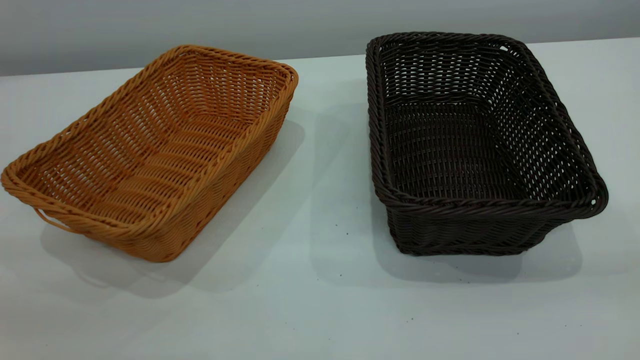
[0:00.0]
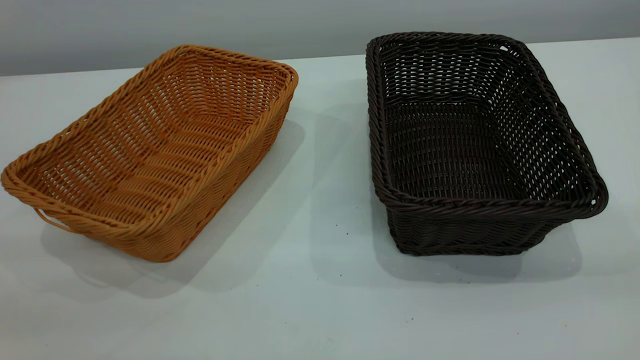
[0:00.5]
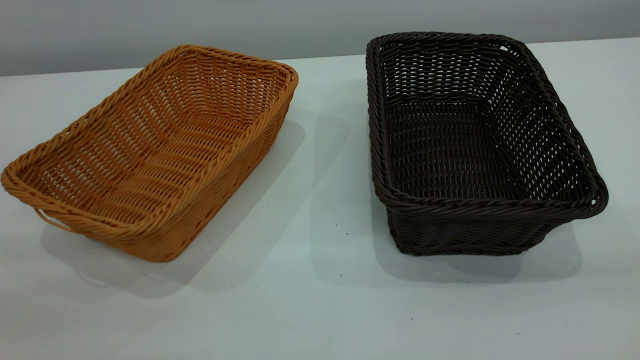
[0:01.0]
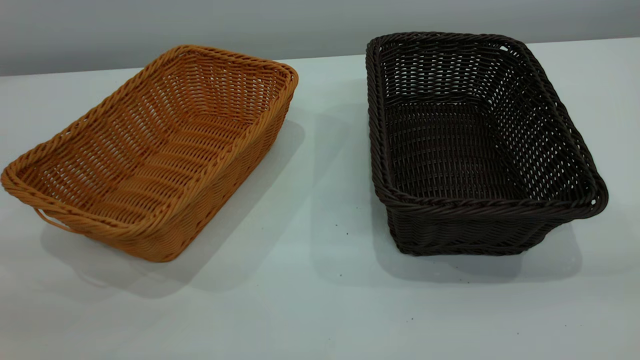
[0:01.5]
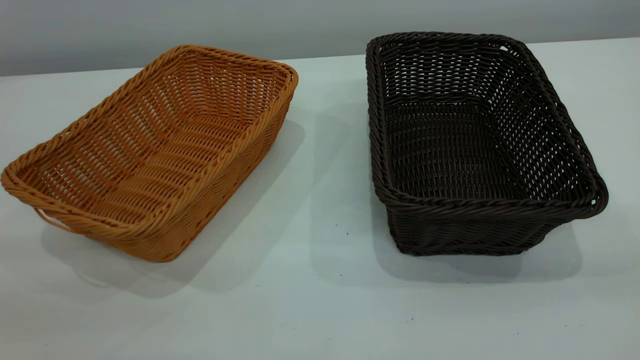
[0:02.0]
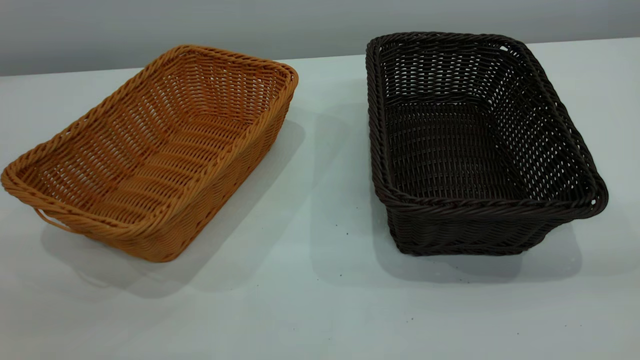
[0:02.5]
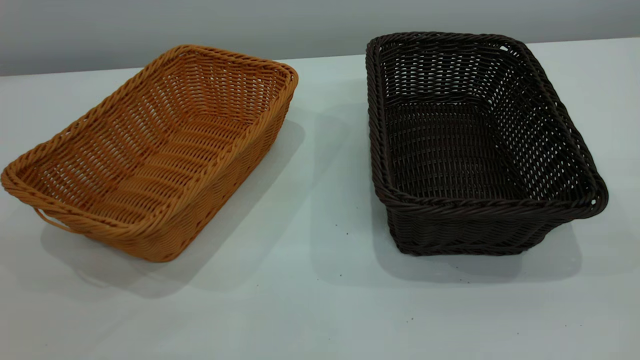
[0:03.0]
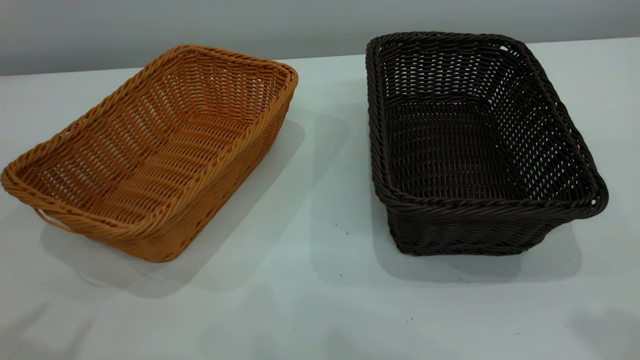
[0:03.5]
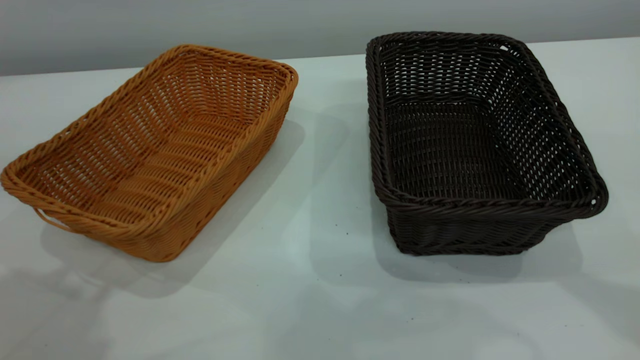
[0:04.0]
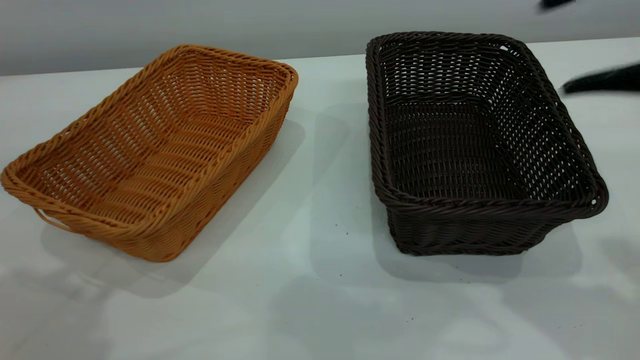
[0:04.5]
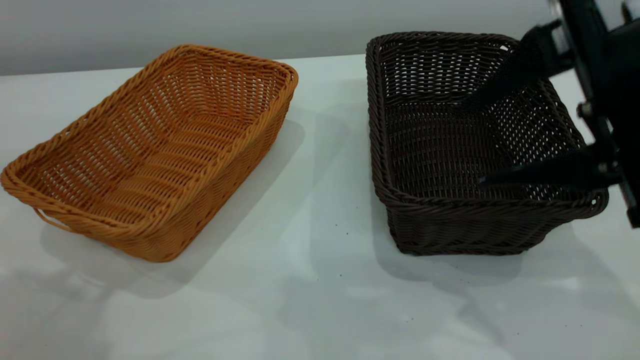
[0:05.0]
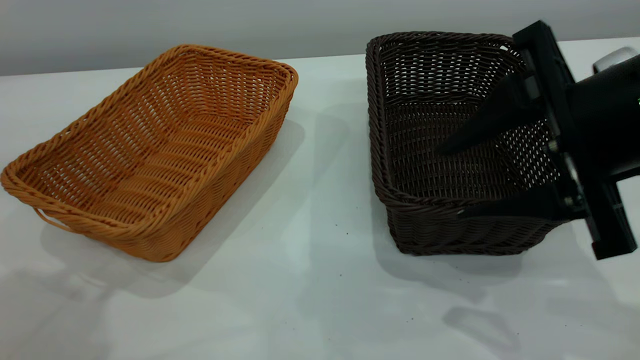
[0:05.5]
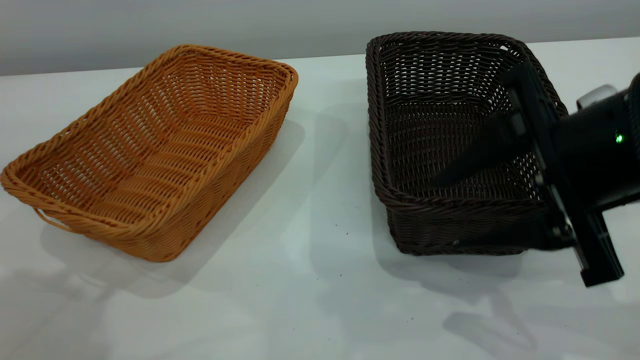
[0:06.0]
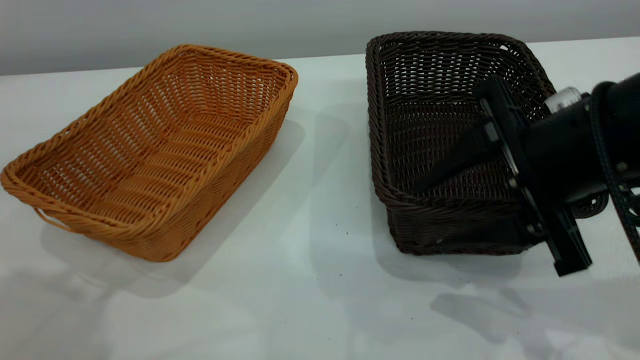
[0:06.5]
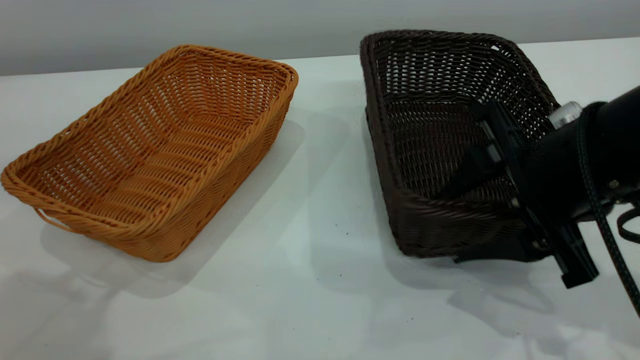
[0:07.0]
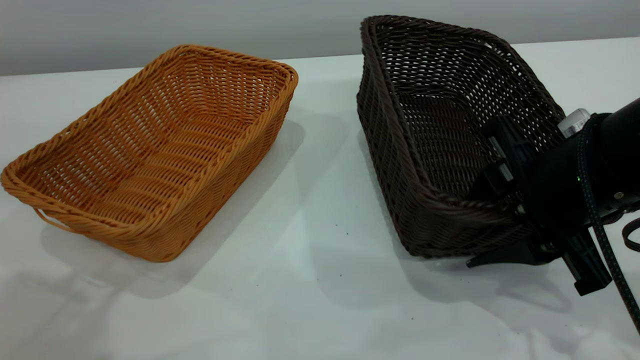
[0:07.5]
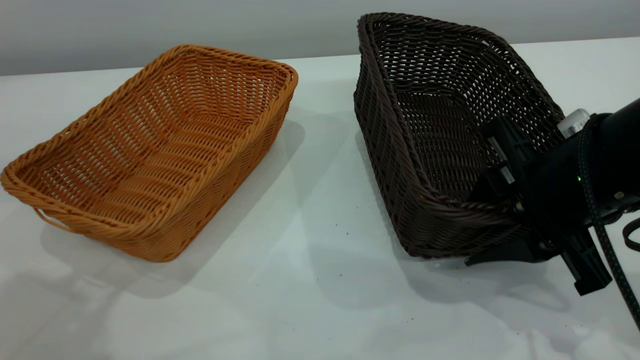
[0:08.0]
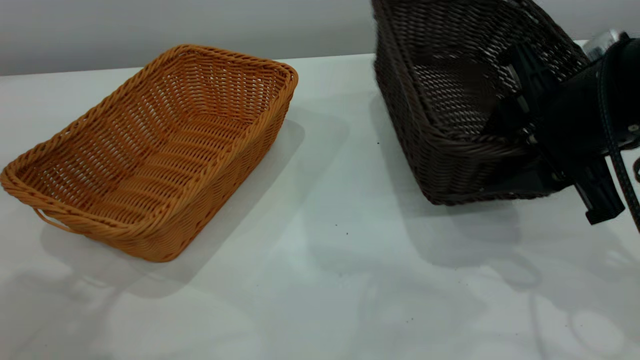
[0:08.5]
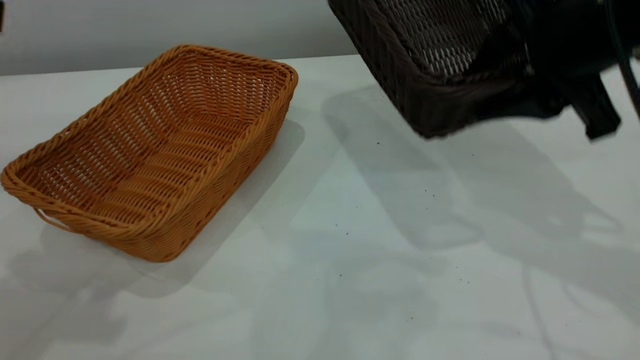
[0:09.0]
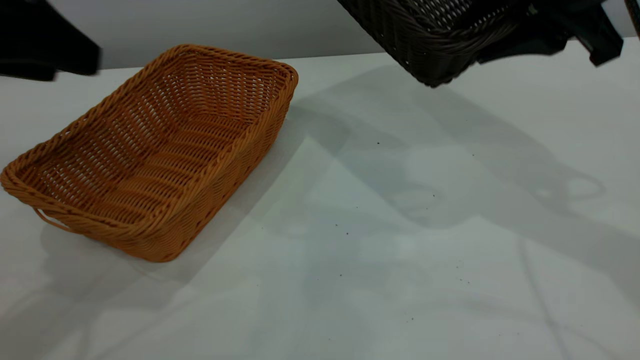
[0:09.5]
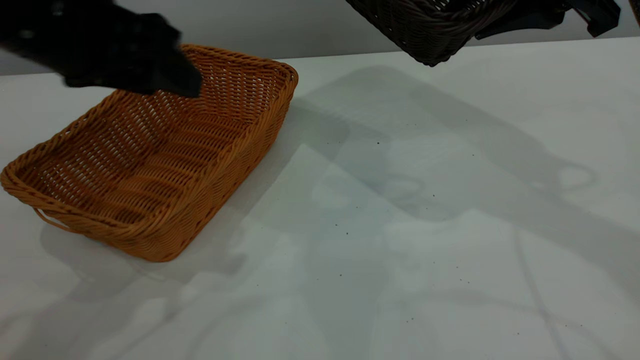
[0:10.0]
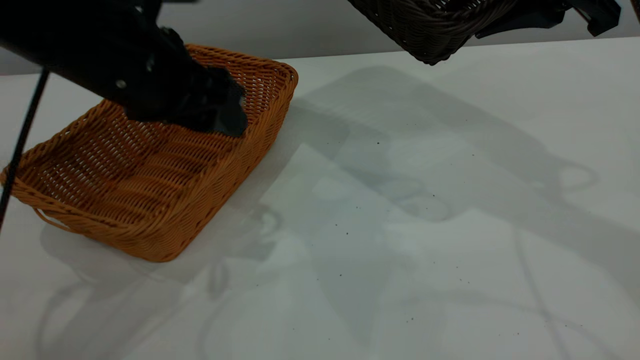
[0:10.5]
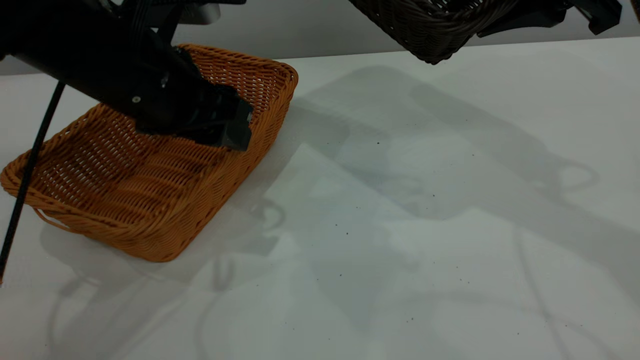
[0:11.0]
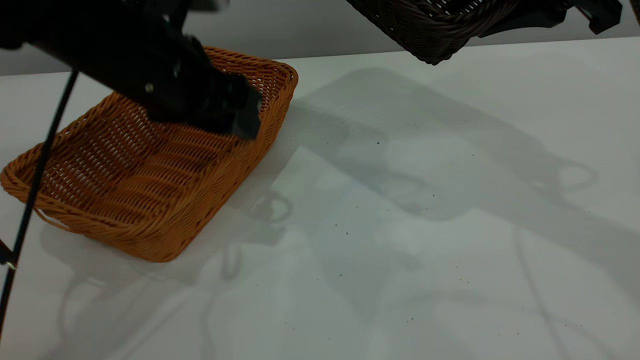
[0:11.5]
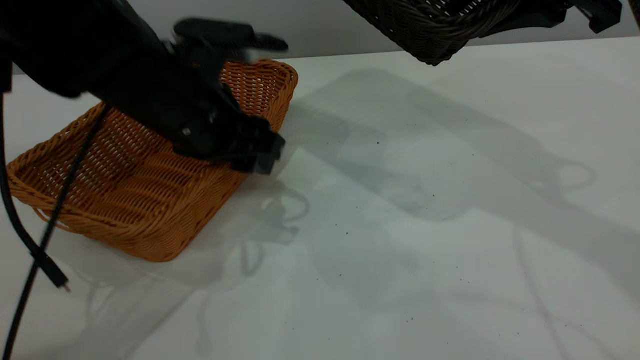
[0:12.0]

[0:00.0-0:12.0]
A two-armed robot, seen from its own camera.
Task of the whole recording: the left gripper grasp the brown basket and place it in the center of the table, the right gripper grasp the black basket and place it inside the brown one.
Step, 0:00.0 to 0:08.5: Pick up the light basket with the right gripper.
0:00.0 to 0:02.0: The two grippers keep their place.
0:04.0 to 0:06.0: The right gripper shifts some 20 cm downward and to the left.
0:06.0 to 0:08.0: The right gripper ends up about 5 cm from where it was.
0:08.0 to 0:10.0: The right gripper shifts approximately 15 cm upward and forward. The left gripper moves forward, downward and to the right, roughly 15 cm.
0:10.0 to 0:12.0: The left gripper goes roughly 10 cm downward and to the right.

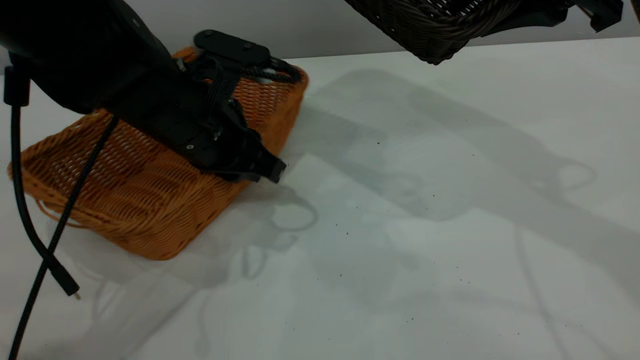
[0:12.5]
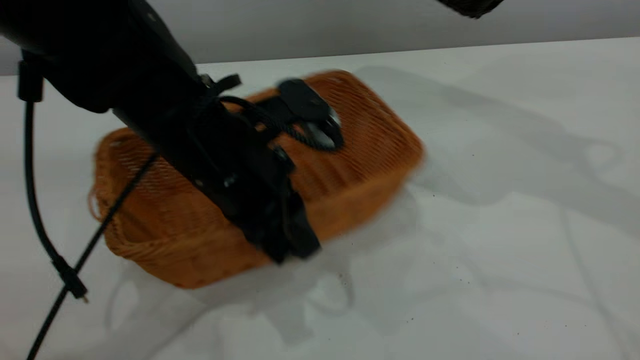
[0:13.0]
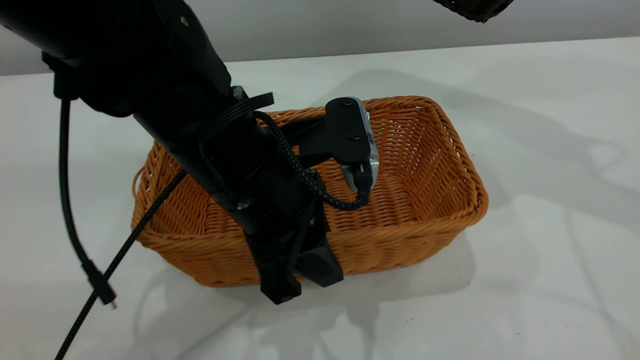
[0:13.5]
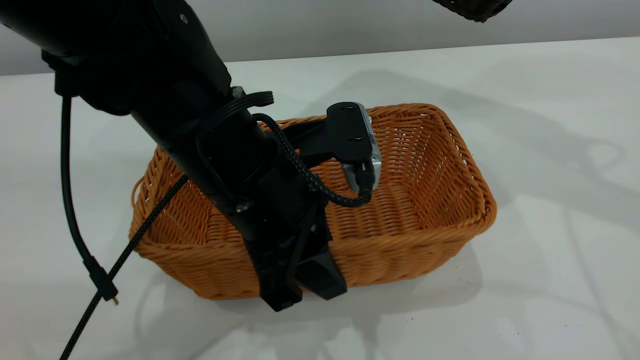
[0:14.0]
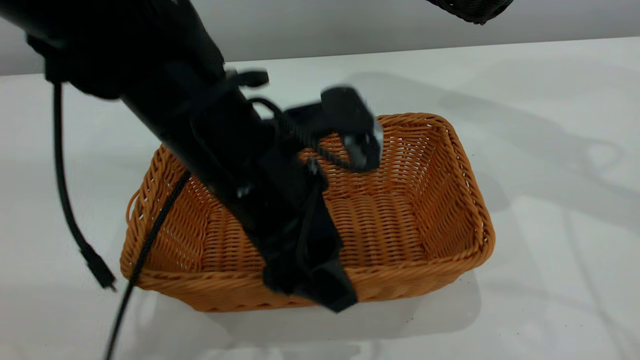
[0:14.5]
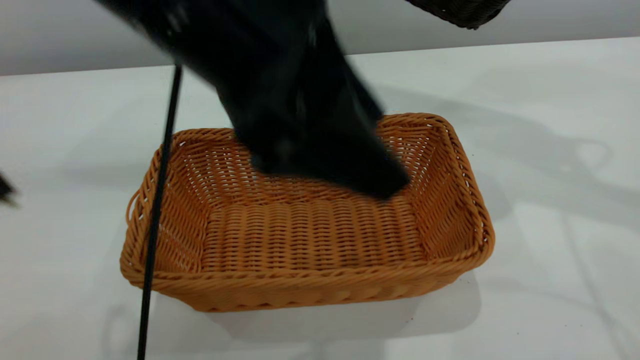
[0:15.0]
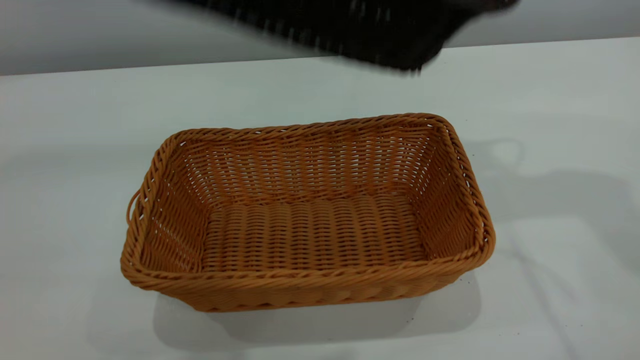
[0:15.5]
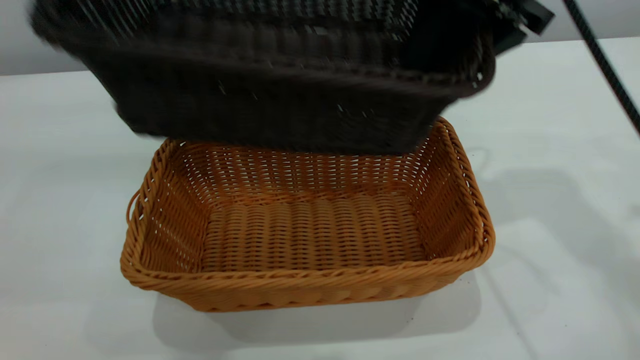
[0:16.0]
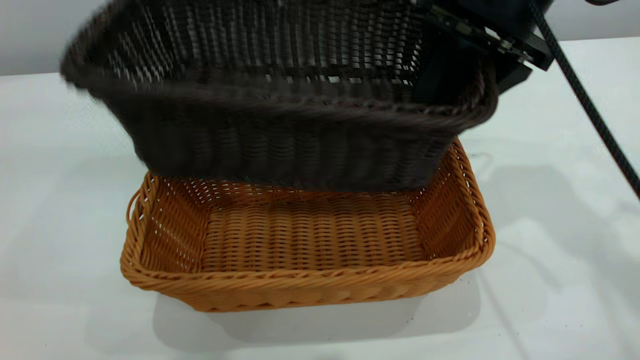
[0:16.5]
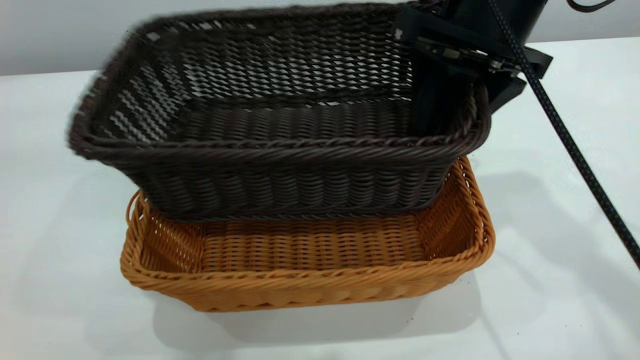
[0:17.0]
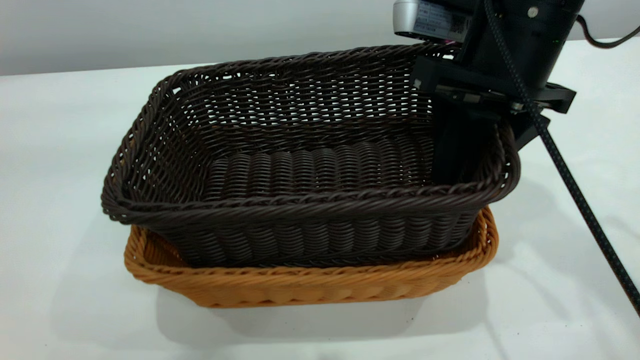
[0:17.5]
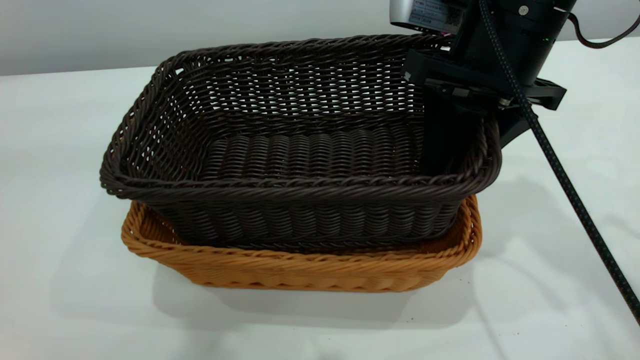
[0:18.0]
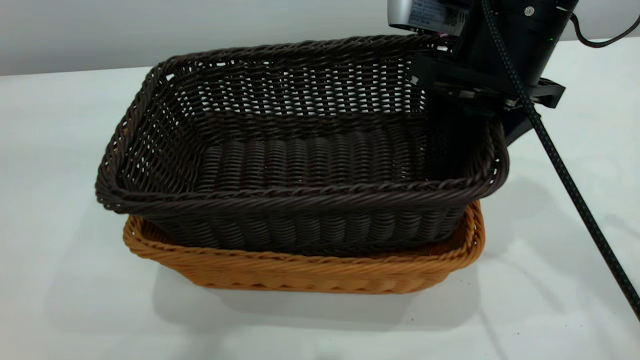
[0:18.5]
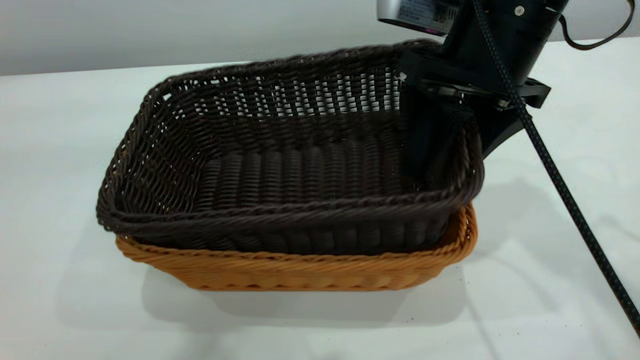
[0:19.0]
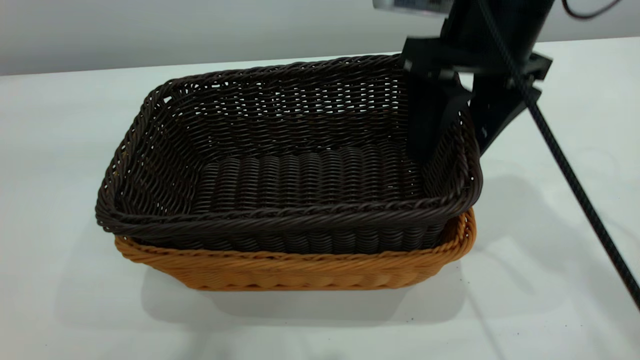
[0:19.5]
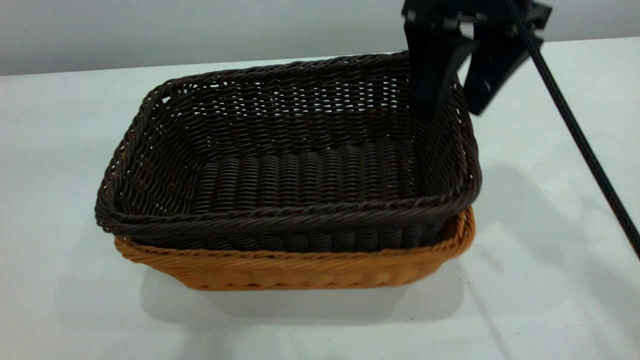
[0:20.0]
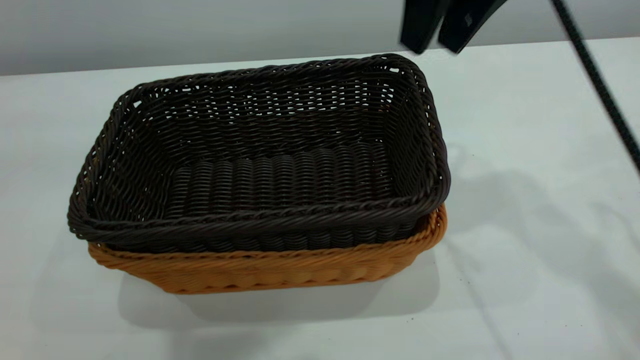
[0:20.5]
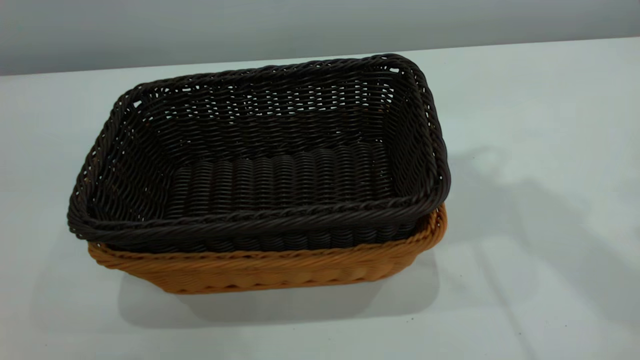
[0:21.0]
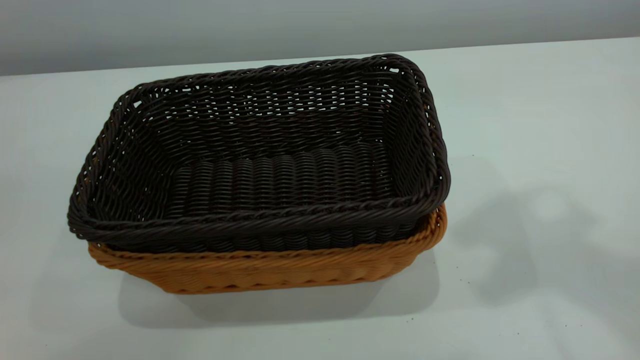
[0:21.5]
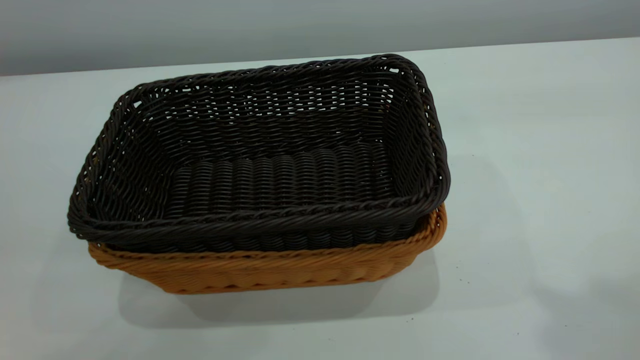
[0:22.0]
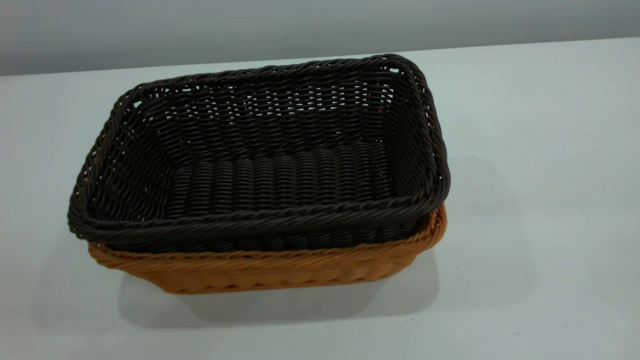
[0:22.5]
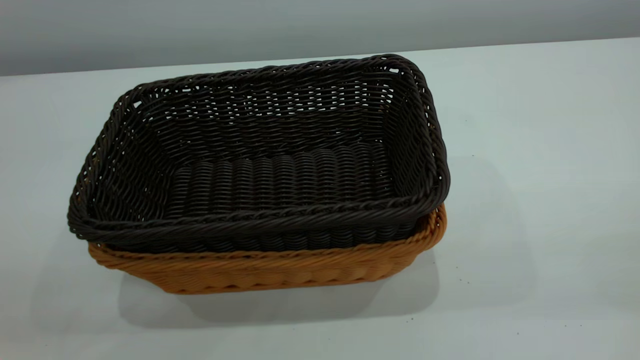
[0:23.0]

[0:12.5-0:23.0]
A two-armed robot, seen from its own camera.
Task of the whole recording: the left gripper grasp the brown basket and place it in the center of the table, the right gripper grasp the black basket and place it inside the brown one.
Step, 0:12.5 to 0:14.5: Place the light-colored basket in the center.
Step, 0:15.0 to 0:20.0: Place the dark basket on top of the light basket.
0:12.5 to 0:14.5: The right gripper moves some 5 cm. The left gripper travels backward and to the right by roughly 10 cm, and opens its fingers.
0:14.5 to 0:16.5: The left gripper shifts approximately 30 cm upward. Meanwhile the right gripper heads to the left and downward, covering about 10 cm.
0:19.0 to 0:21.0: The left gripper shifts by about 5 cm, and closes its fingers. Meanwhile the right gripper is displaced upward by approximately 15 cm, and closes.
